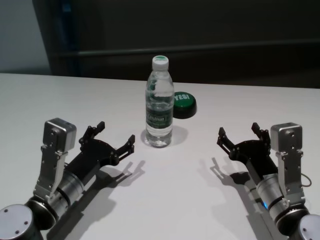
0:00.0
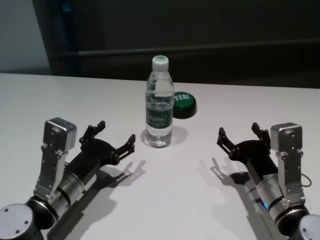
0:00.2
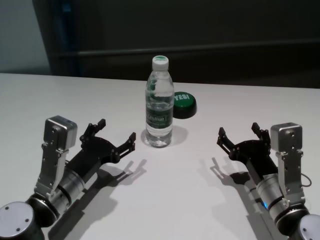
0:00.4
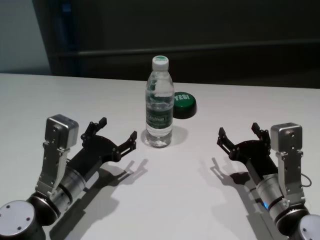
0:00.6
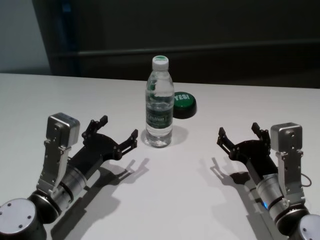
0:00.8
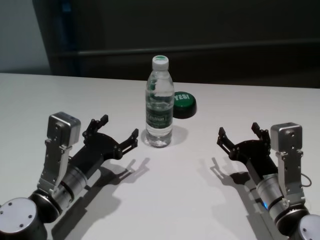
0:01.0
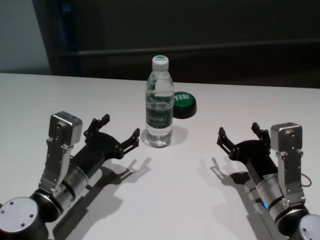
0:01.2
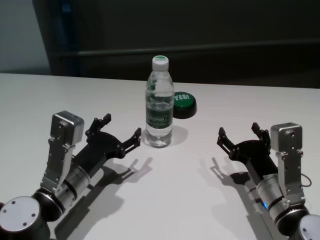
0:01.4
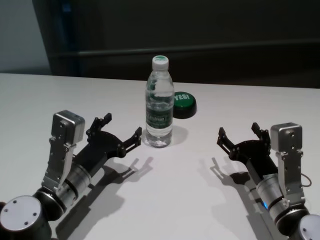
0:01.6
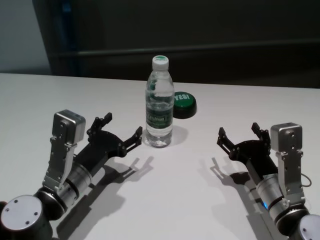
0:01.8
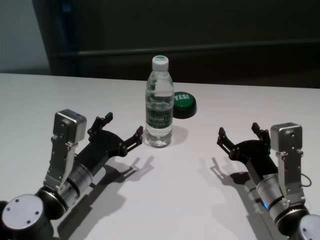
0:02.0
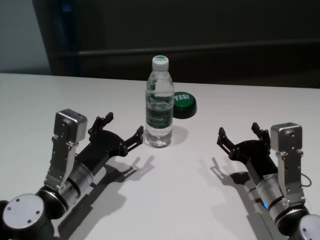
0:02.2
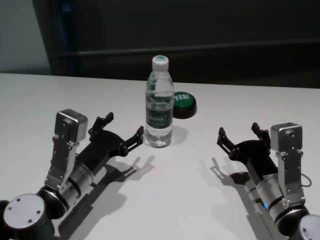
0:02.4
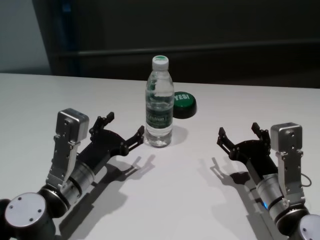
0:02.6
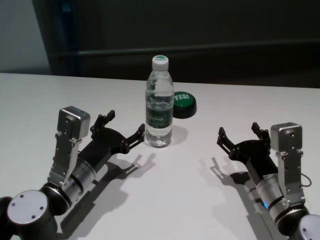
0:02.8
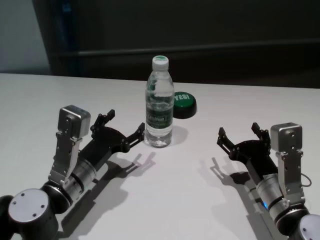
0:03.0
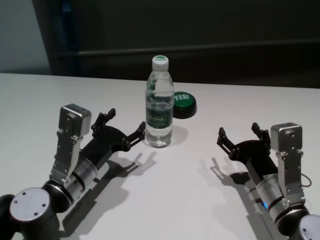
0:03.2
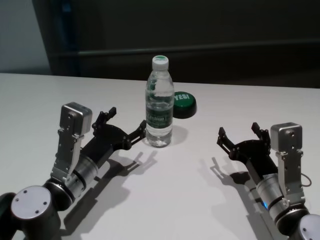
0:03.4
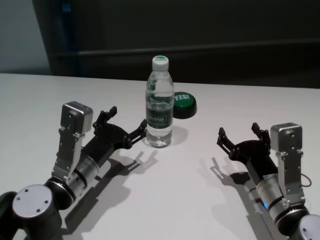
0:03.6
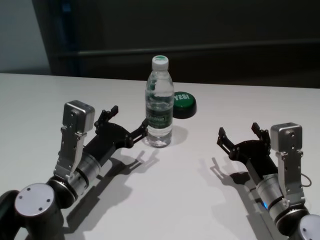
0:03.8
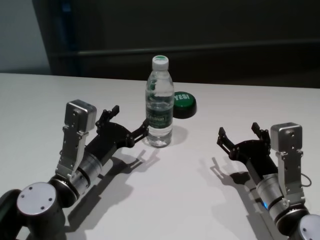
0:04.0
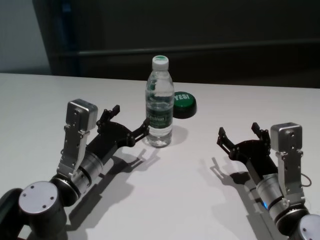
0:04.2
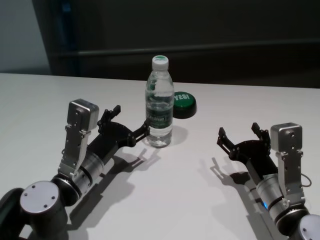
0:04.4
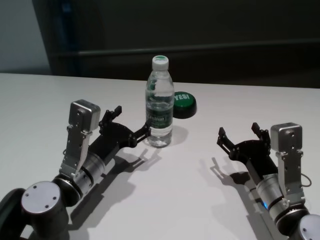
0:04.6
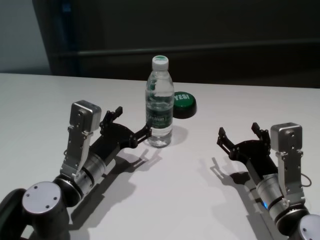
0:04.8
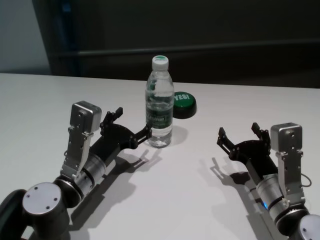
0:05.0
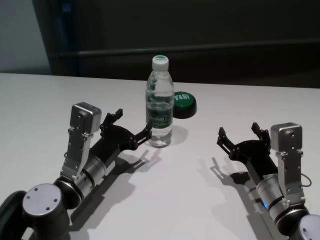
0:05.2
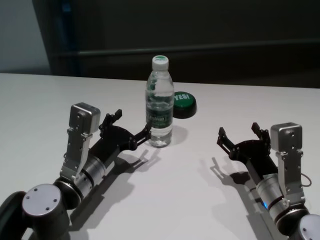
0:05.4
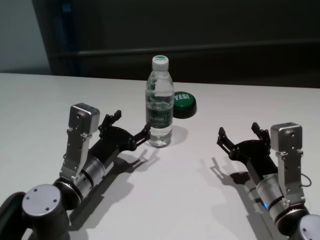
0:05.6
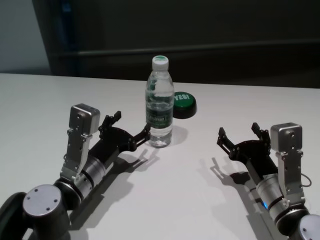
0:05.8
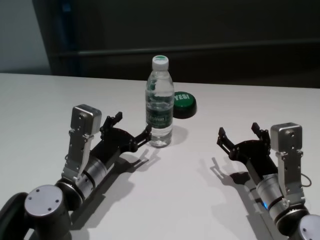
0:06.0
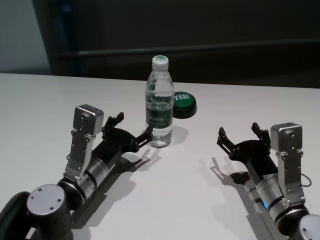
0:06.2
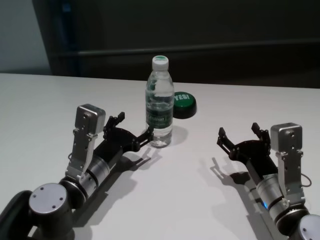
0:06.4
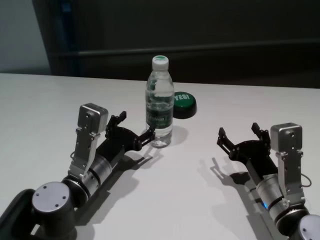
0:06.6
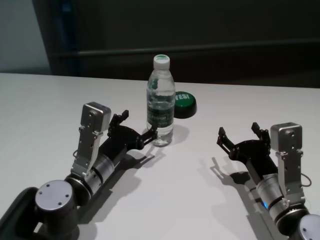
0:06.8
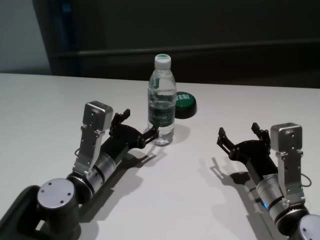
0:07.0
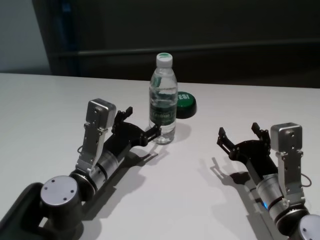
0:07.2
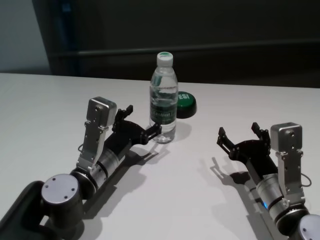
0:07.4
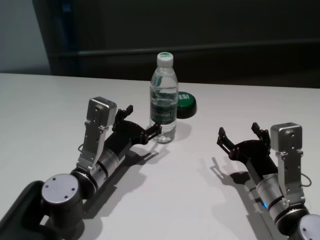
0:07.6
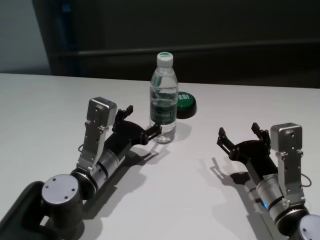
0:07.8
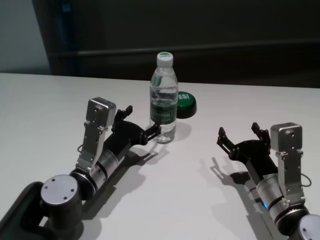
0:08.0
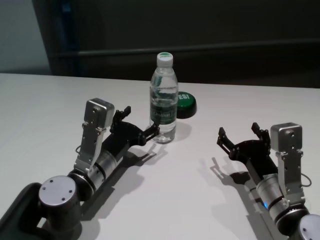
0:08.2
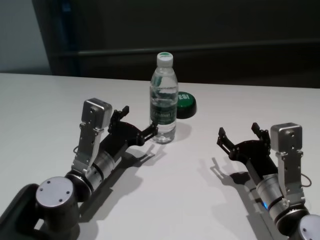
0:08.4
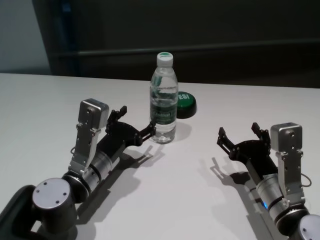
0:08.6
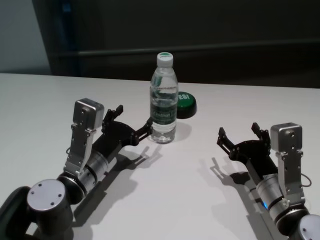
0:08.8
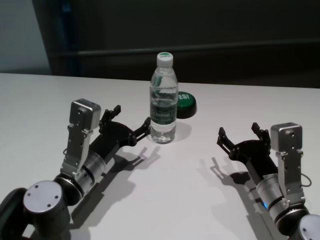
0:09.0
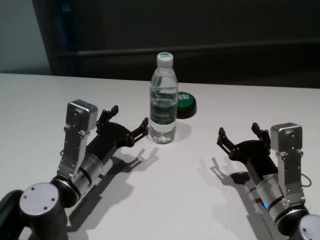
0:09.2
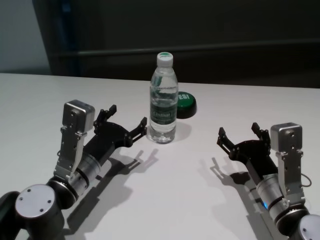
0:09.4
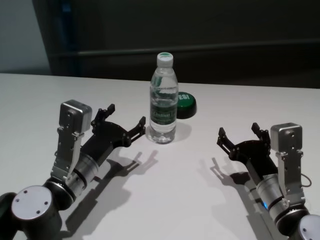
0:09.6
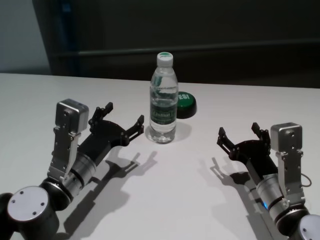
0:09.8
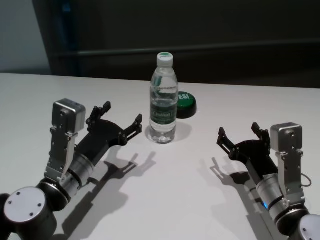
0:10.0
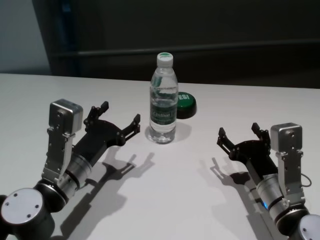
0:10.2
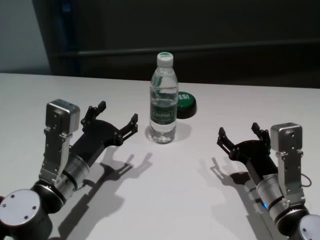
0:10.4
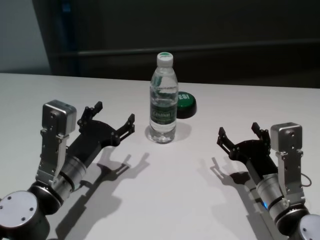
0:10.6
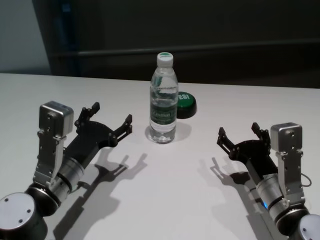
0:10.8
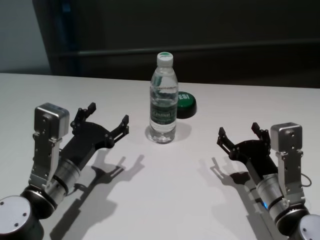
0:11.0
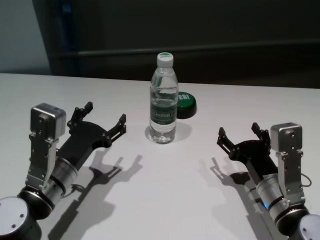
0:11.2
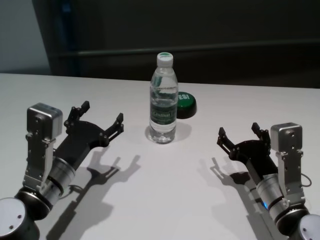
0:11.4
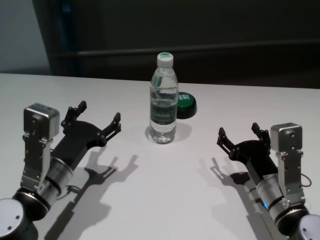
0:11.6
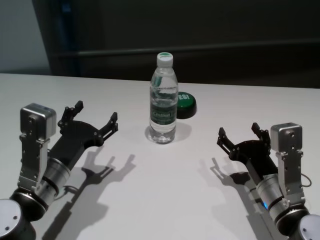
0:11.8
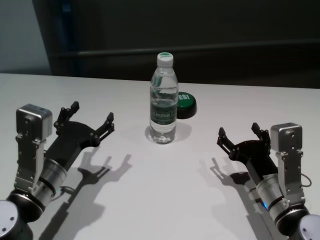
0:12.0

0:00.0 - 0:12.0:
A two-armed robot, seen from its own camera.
Task of the whole recording: return to a safe position after touching an obstacle with your arm on the white table.
Step, 0:00.0 - 0:09.2: Touch the bottle with left gripper.

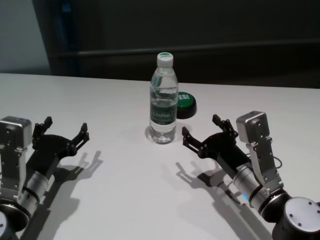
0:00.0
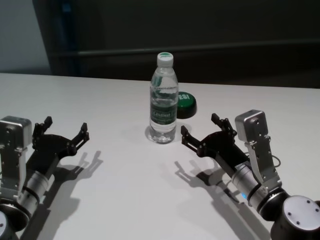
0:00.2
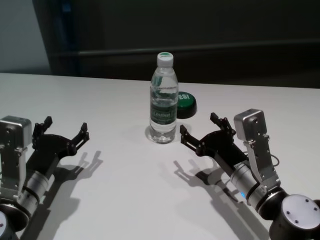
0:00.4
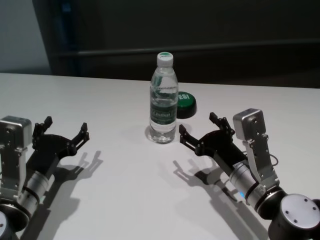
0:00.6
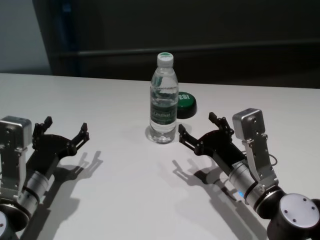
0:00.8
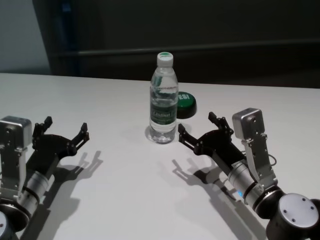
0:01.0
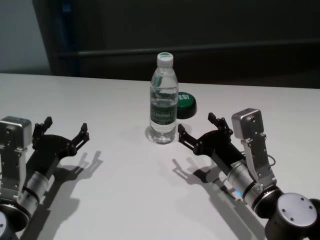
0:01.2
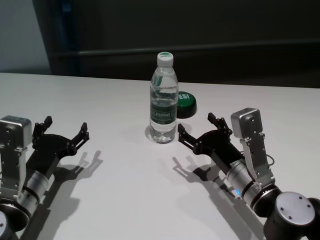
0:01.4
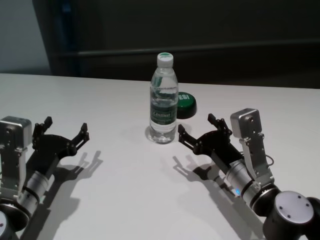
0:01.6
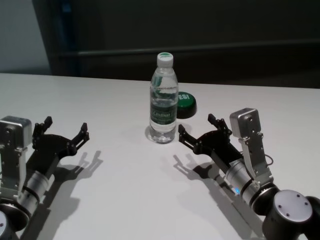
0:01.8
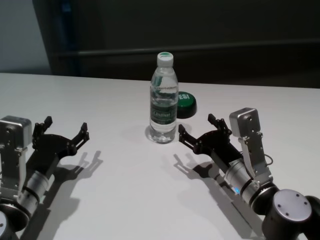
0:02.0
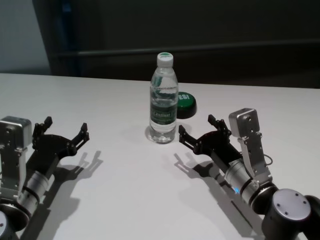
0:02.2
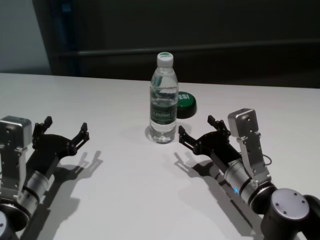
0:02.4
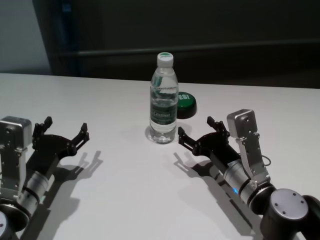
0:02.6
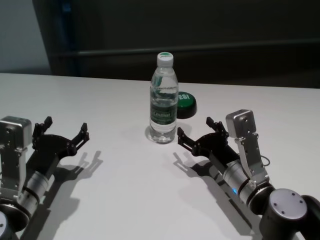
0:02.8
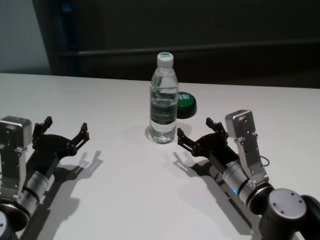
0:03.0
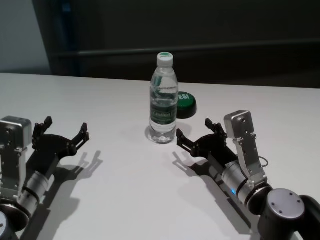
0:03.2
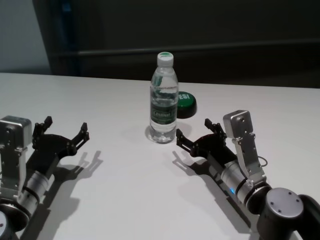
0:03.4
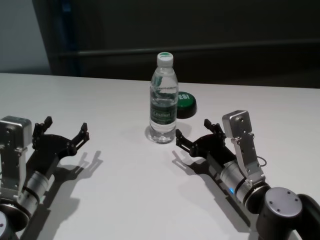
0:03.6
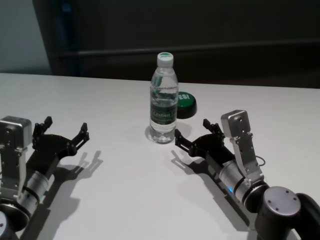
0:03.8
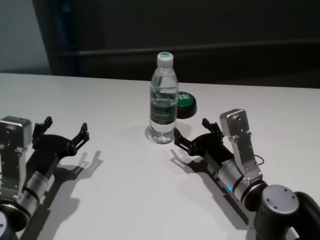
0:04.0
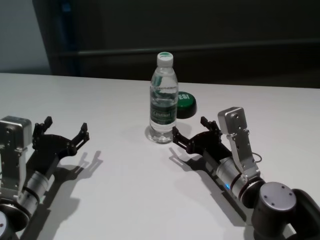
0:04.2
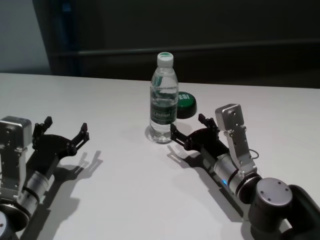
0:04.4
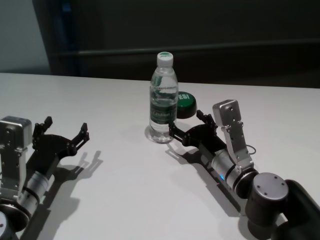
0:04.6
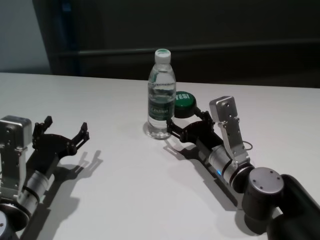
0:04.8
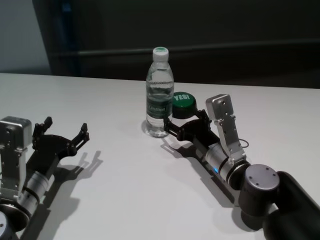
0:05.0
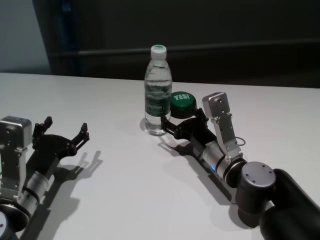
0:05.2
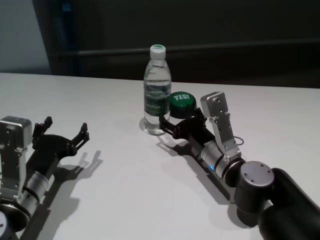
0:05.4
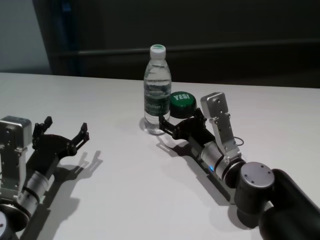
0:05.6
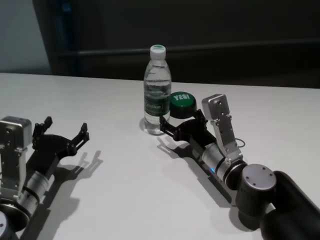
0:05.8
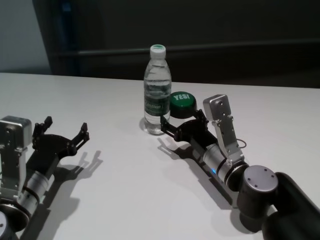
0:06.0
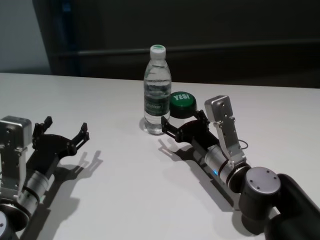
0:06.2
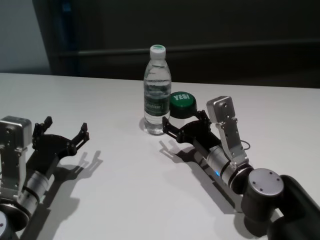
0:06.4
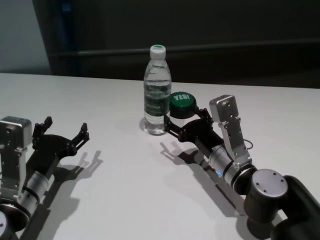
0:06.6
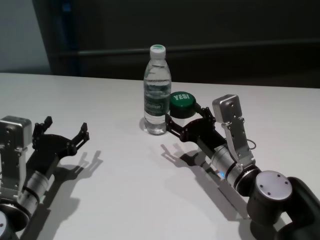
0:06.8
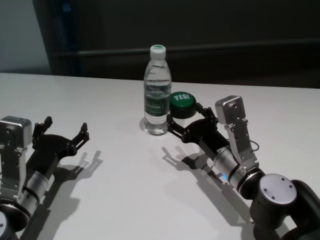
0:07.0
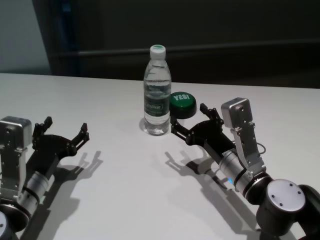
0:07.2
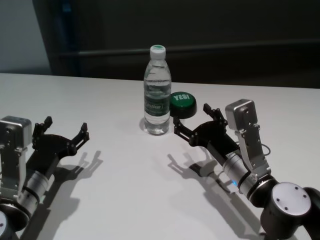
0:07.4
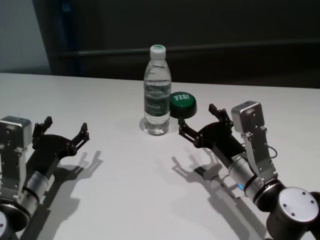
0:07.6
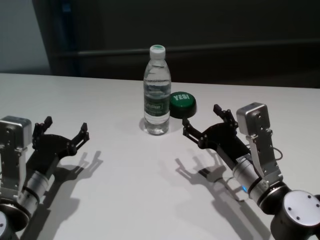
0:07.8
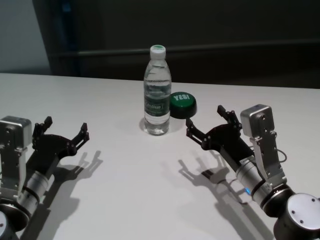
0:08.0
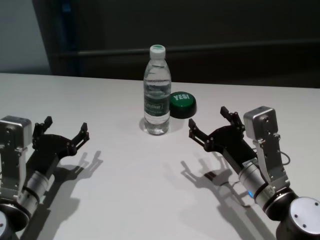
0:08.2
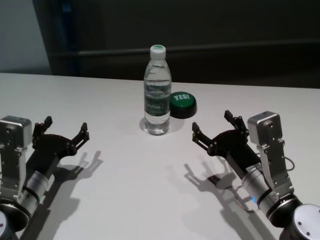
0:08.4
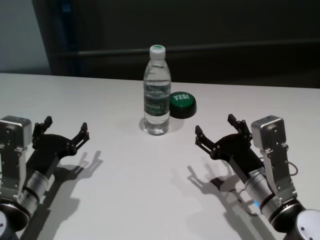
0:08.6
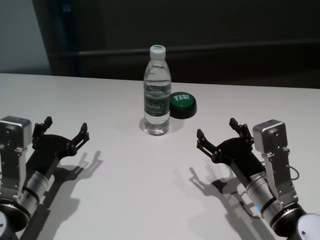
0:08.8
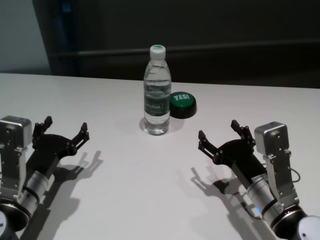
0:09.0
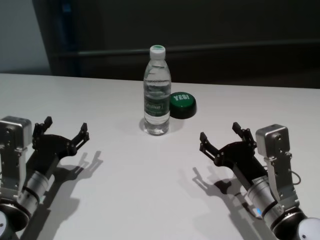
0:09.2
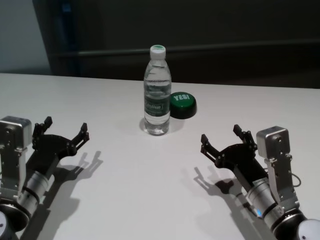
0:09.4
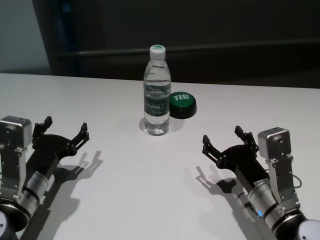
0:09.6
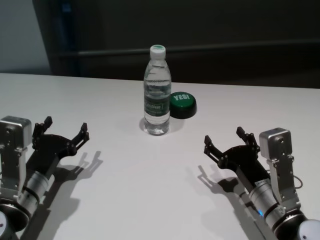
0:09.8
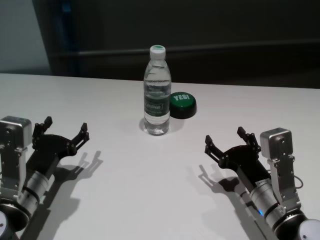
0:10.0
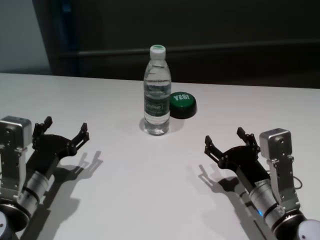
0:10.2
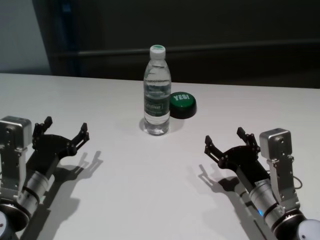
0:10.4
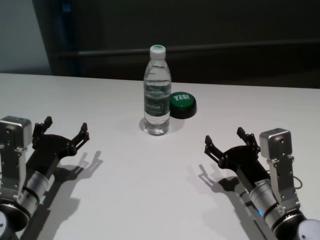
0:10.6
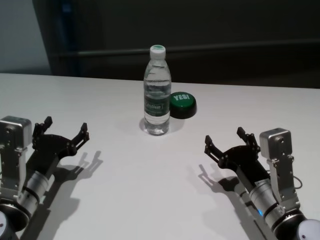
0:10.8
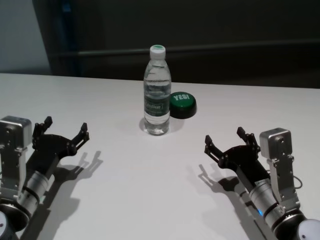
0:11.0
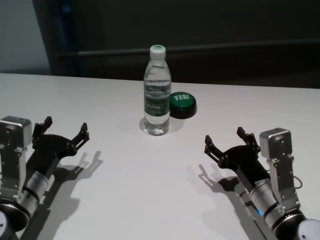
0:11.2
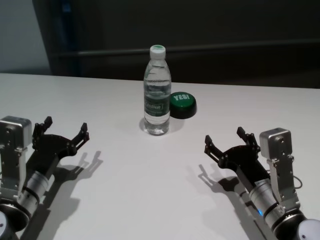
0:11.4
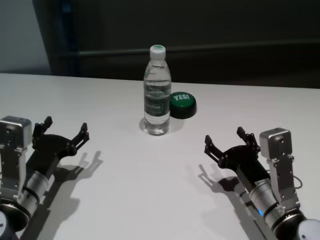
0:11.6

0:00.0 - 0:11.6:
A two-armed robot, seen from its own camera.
Task of the whole recording: return to a safe position after touching an obstacle with your arm on the white table.
Step, 0:00.0 - 0:06.0: Touch the bottle with right gripper.
